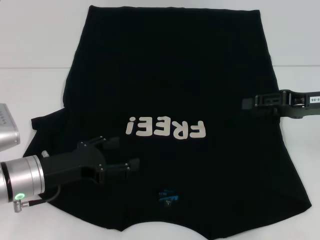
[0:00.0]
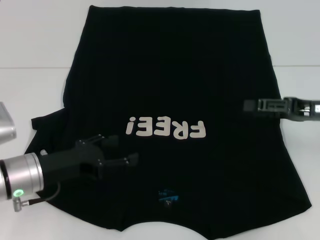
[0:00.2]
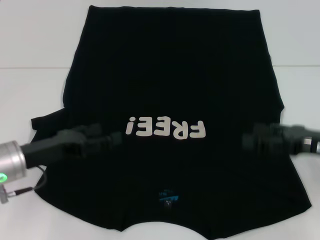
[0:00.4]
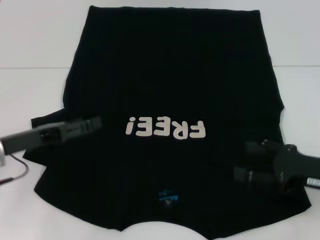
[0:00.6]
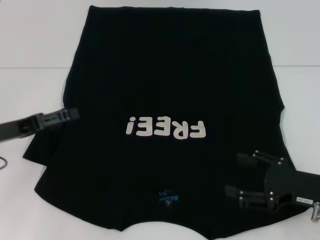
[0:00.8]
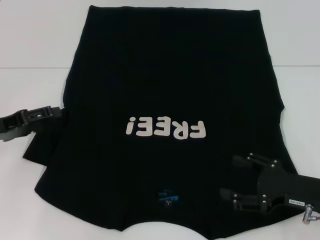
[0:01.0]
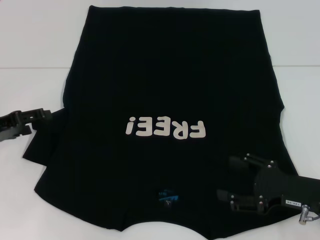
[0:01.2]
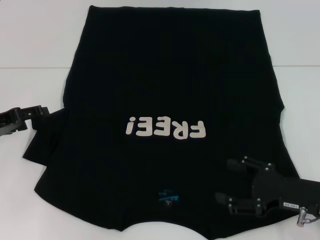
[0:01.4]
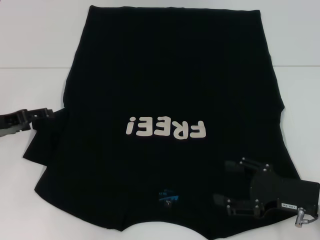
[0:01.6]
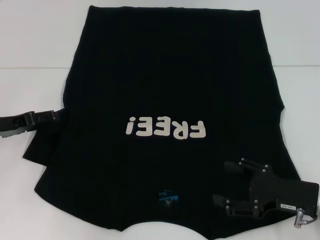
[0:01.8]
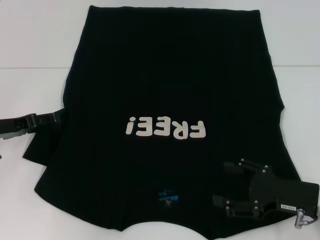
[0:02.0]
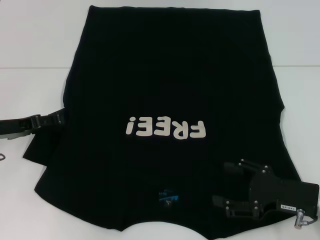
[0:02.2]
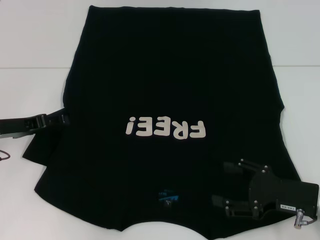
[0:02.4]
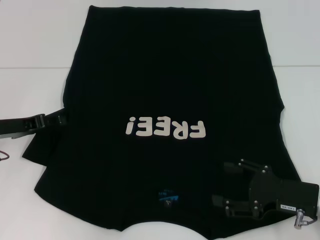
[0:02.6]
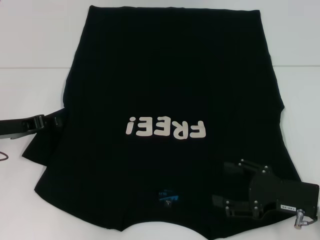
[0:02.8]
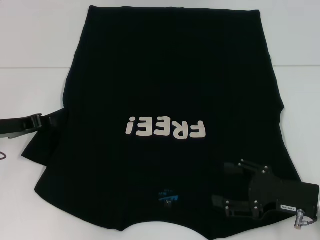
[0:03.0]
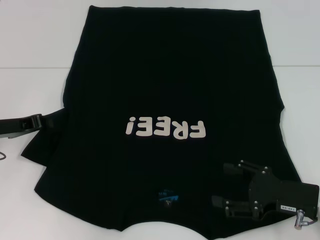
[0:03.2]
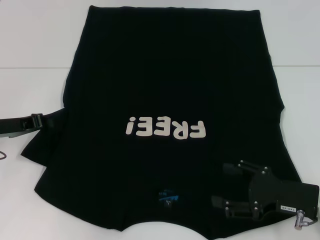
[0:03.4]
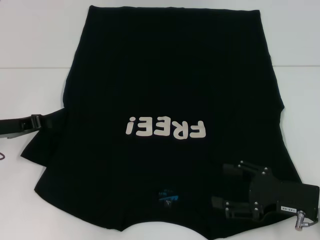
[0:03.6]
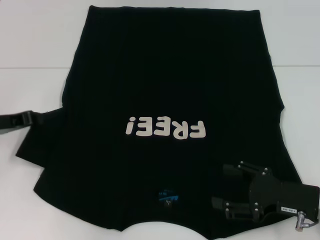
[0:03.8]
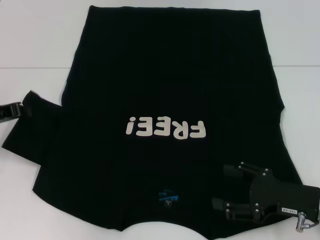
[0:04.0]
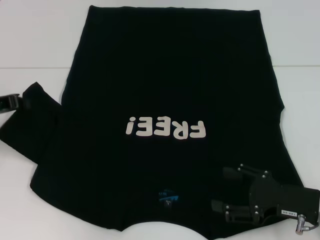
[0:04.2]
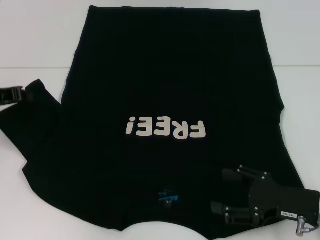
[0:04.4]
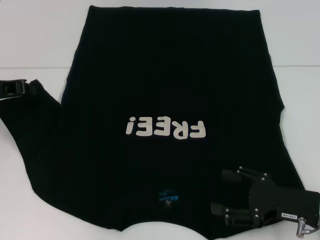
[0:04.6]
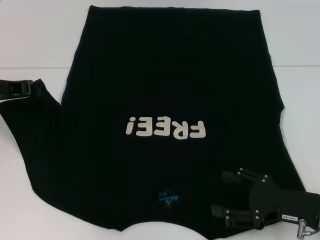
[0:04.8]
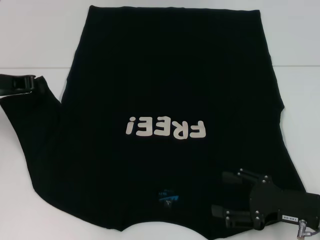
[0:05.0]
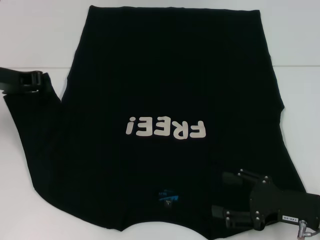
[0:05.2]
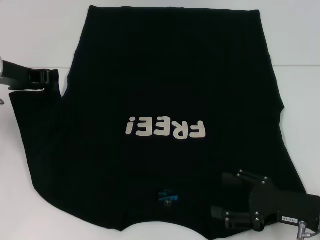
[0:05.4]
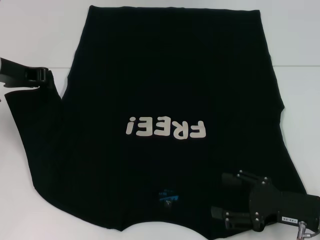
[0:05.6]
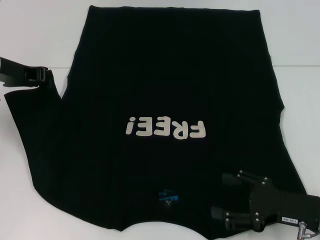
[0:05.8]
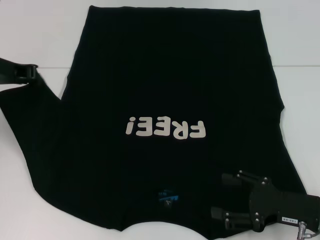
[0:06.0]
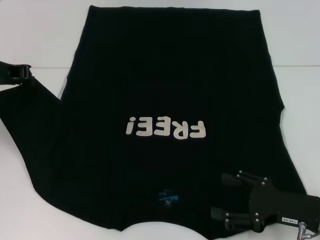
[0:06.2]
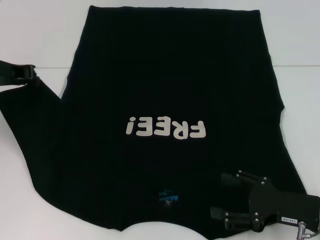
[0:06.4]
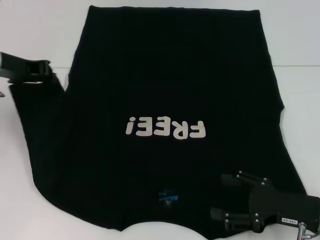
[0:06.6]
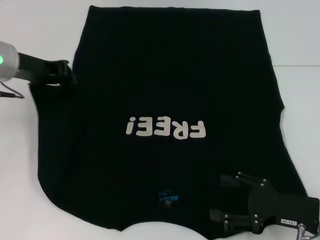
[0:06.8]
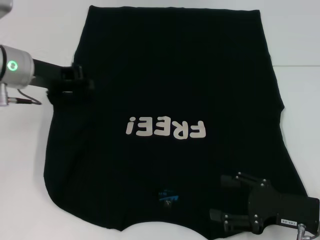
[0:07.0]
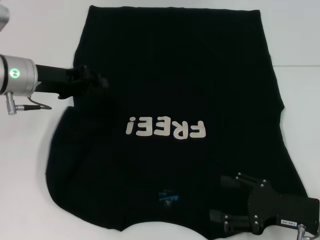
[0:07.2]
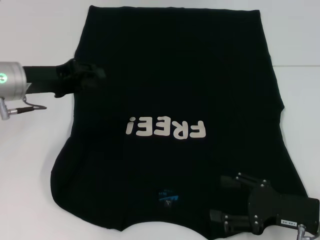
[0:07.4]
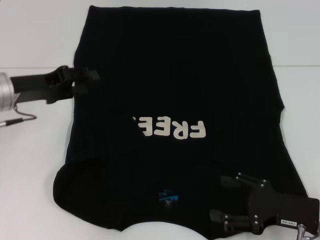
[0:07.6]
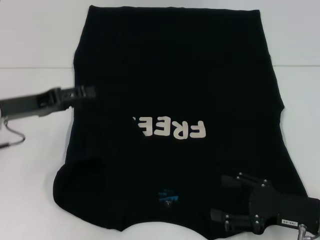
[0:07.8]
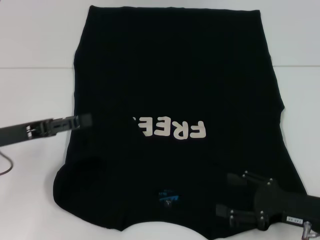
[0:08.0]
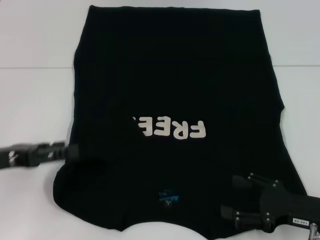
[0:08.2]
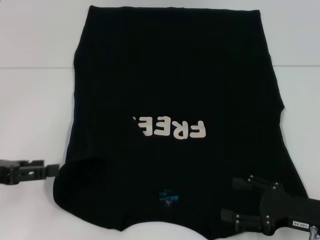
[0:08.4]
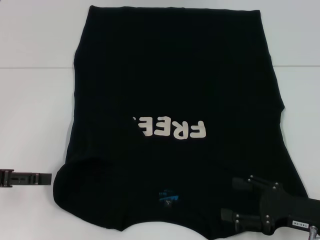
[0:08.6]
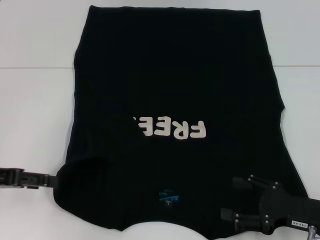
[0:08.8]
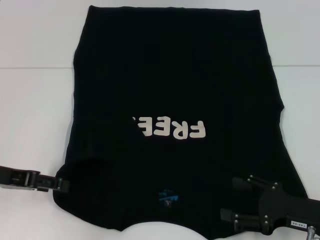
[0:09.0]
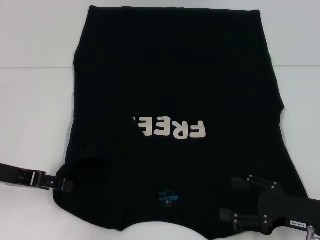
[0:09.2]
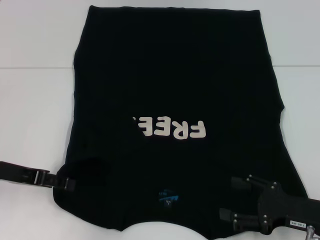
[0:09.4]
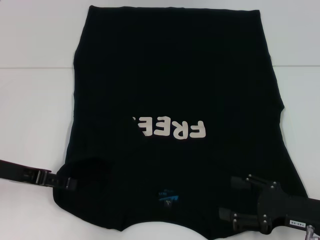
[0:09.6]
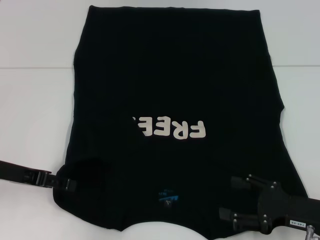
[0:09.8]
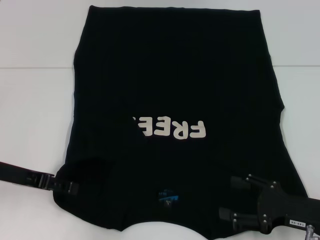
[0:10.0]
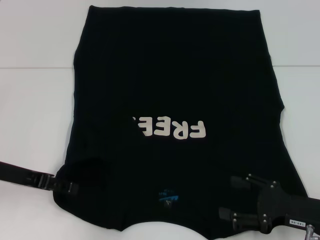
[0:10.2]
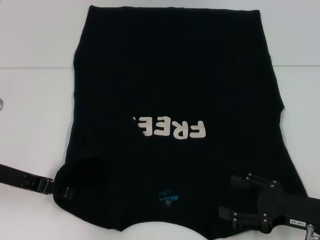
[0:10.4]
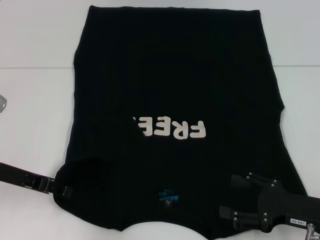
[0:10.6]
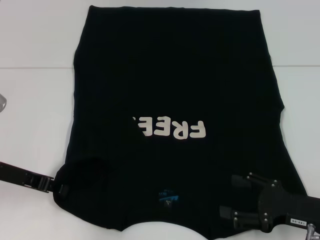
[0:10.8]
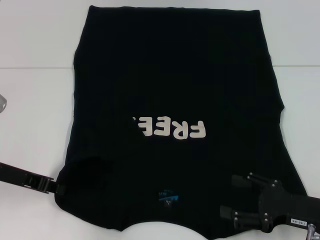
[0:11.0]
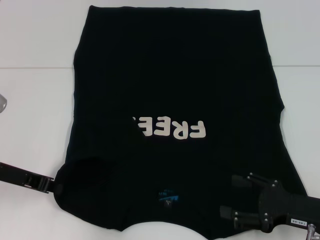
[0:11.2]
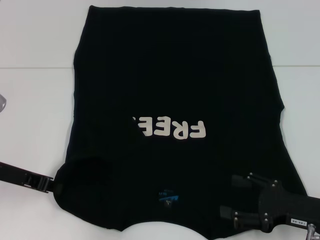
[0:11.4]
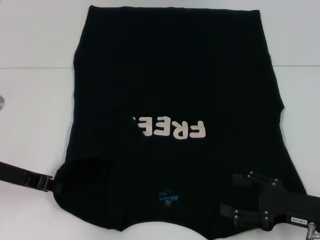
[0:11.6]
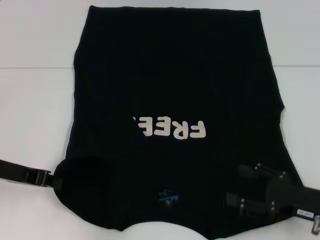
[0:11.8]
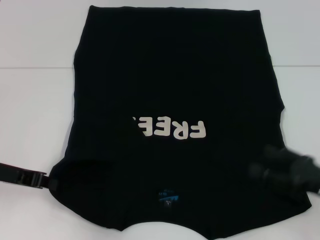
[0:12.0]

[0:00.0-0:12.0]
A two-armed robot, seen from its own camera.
Step, 0:00.4 to 0:07.6: Fold the bottom left sleeve with your left hand.
Step, 0:07.8 to 0:11.6: Grab the bottom left corner with your left hand.
0:00.0 to 0:01.6: The left gripper moves to the left and forward, roughly 10 cm; the right gripper moves downward and backward, about 15 cm, and opens its fingers.
0:01.6 to 0:03.0: There are only small adjustments of the grippers.
0:03.0 to 0:04.4: The left gripper travels upward by roughly 5 cm, and closes up.
0:04.4 to 0:06.0: The left gripper shifts roughly 5 cm upward.
0:06.0 to 0:07.6: The left gripper moves downward, roughly 5 cm.
0:07.6 to 0:09.0: The left gripper travels backward by about 10 cm, and opens its fingers.
0:09.0 to 0:10.4: The grippers make only small movements.
0:10.4 to 0:12.0: The left gripper closes up.

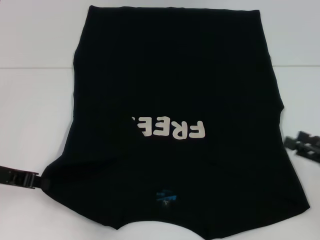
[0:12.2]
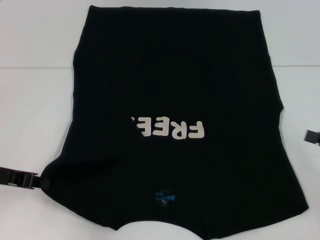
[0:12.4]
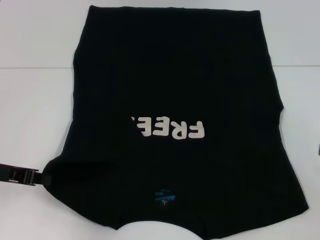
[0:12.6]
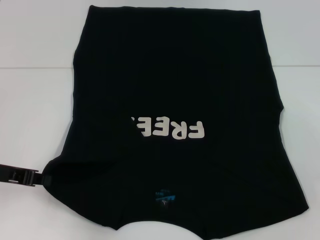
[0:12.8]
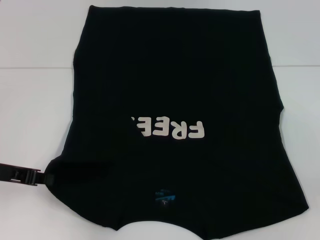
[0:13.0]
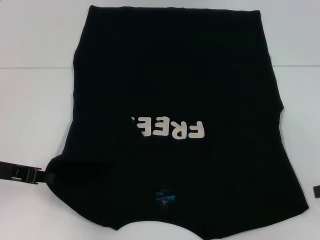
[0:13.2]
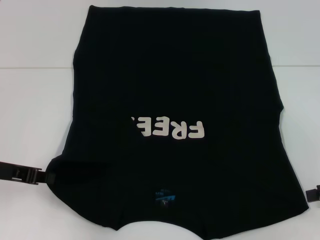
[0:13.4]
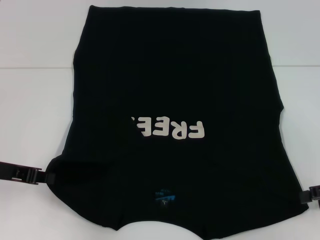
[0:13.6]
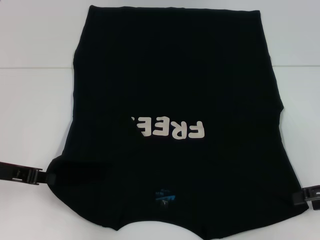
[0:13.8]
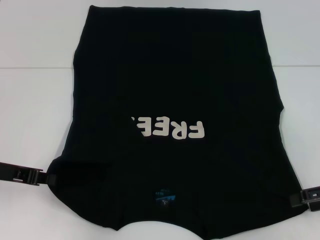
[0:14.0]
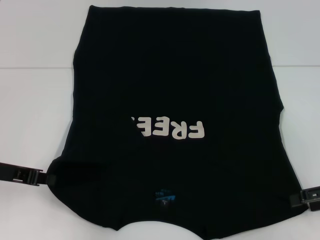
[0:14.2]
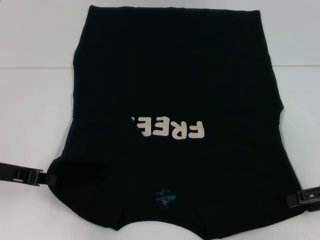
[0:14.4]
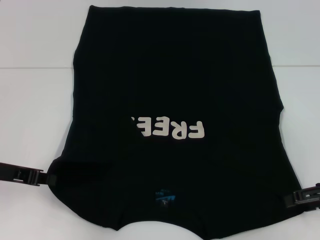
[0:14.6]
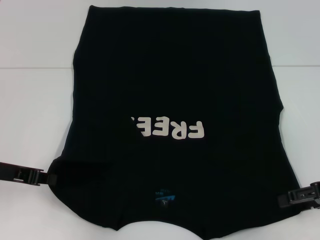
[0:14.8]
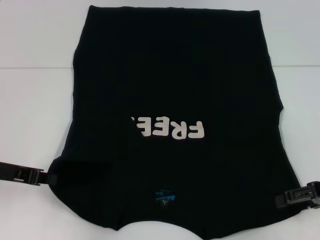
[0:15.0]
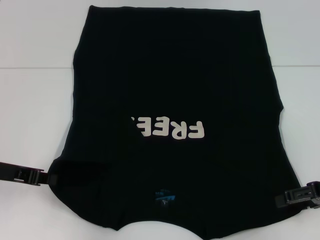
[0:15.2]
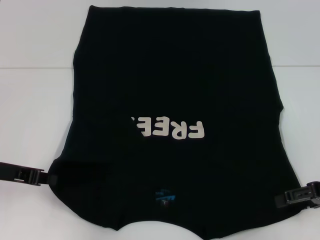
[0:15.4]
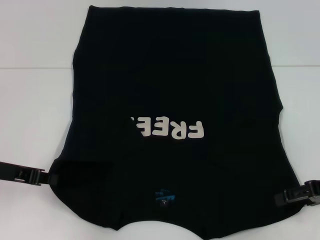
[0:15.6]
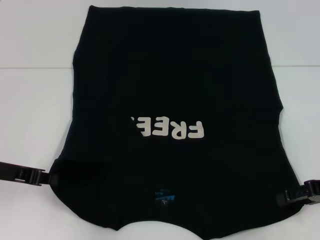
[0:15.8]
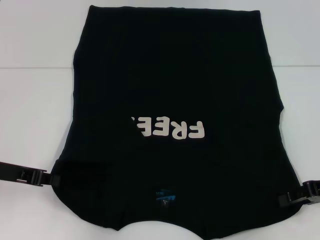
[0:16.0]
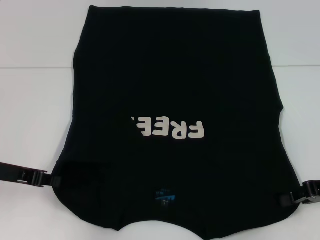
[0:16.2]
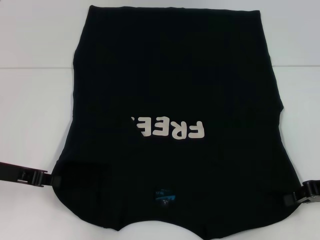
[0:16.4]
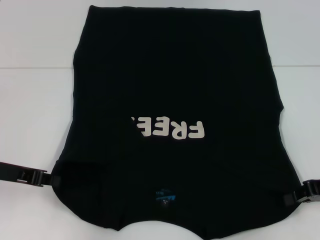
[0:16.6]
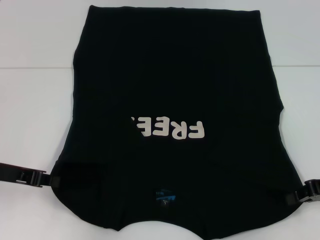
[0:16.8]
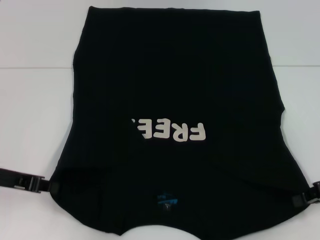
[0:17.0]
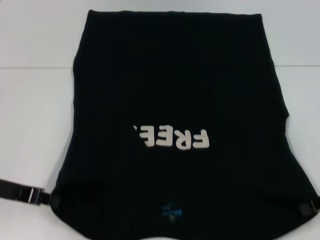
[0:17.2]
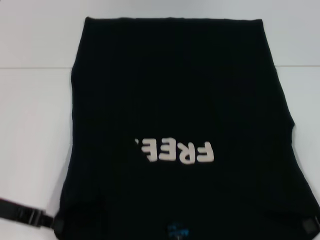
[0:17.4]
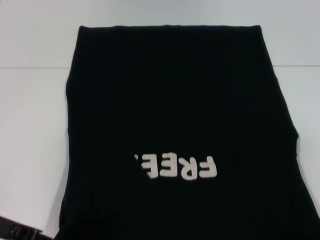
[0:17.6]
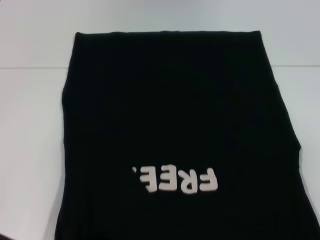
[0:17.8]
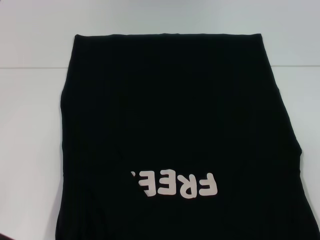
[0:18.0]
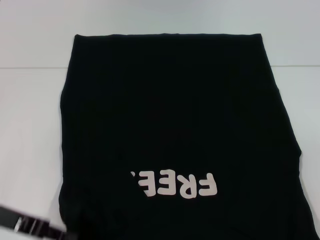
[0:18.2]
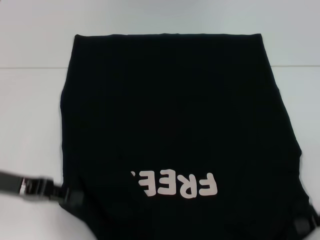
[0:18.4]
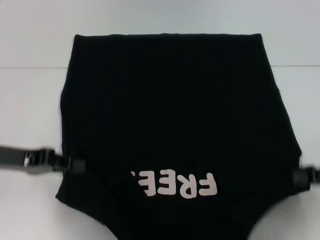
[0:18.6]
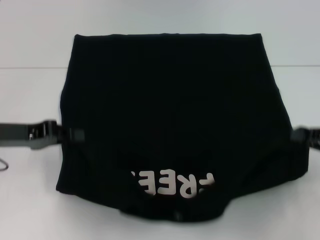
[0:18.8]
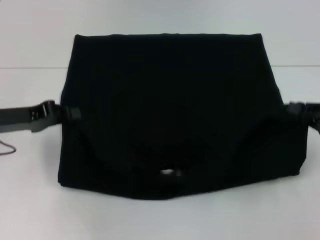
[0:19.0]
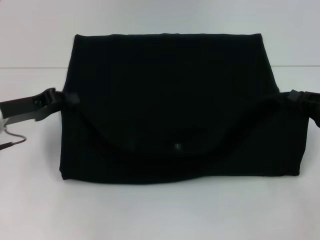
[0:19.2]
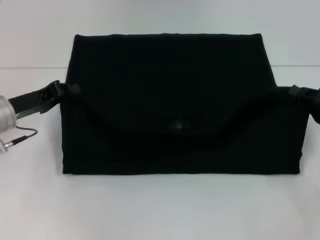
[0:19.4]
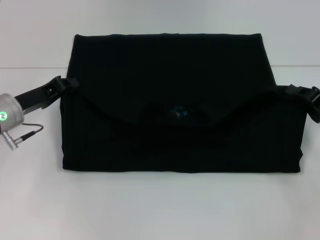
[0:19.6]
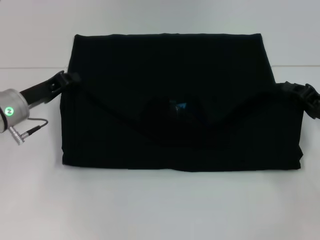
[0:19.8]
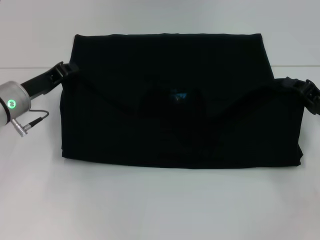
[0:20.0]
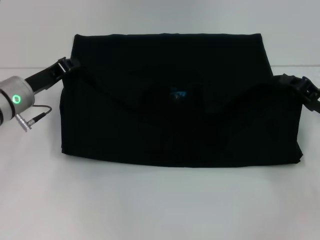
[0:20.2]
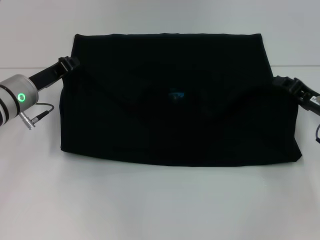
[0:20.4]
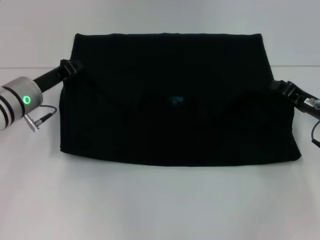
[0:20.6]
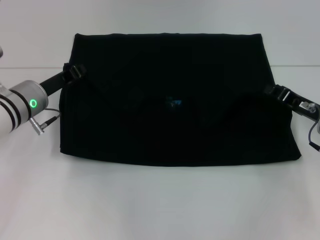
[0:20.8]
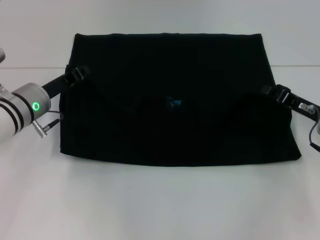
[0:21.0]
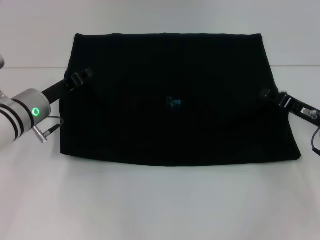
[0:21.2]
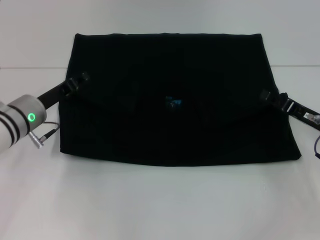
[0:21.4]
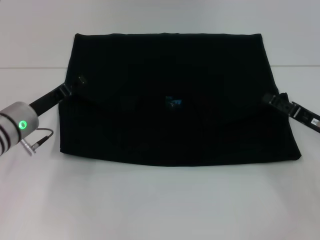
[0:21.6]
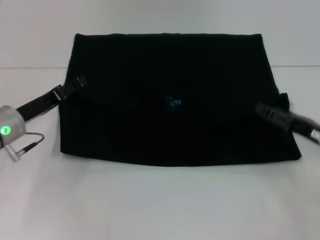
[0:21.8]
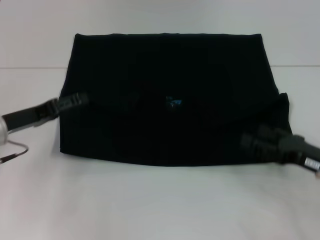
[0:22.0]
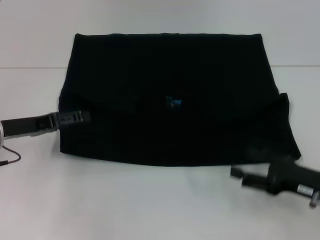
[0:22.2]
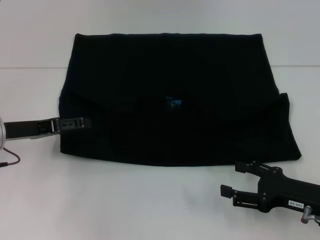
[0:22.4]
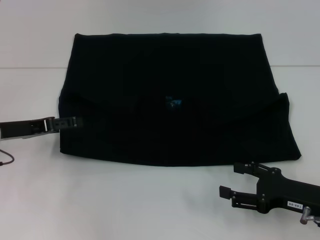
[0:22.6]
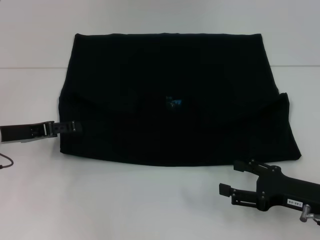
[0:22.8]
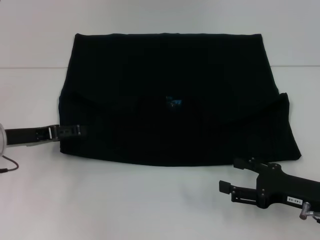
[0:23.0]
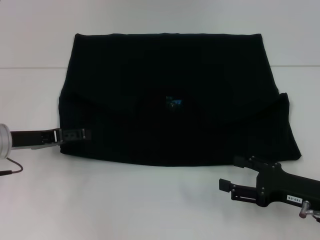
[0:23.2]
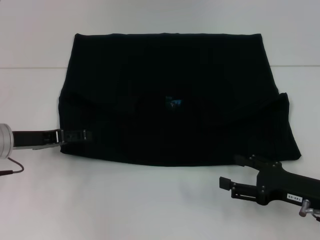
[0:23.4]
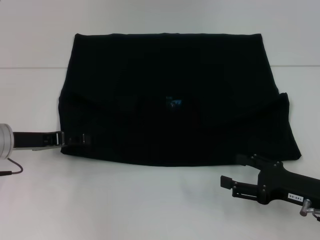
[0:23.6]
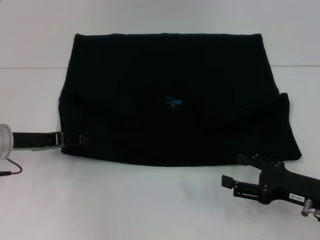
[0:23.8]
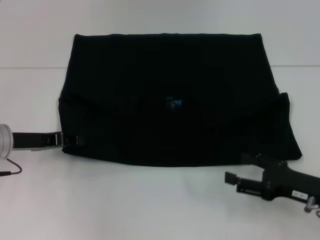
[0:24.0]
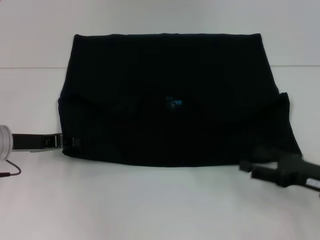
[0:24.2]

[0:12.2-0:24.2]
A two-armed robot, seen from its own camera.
Step, 0:12.2 to 0:16.8: Grab the bottom right corner with your right hand.
Step, 0:17.0 to 0:21.4: Fold the clothes with your left hand.
Step, 0:17.0 to 0:21.4: Fold the clothes with your right hand.
0:13.8 to 0:15.2: The grippers stay close to where they were, moving slightly.
0:15.2 to 0:16.6: The right gripper closes its fingers.
0:16.6 to 0:18.2: The right gripper travels backward by approximately 5 cm.
0:18.2 to 0:19.8: The grippers both shift forward by roughly 10 cm.
0:19.8 to 0:21.2: The grippers make only small movements.
0:21.2 to 0:22.6: The left gripper moves to the left, approximately 5 cm, and opens its fingers, while the right gripper is displaced backward by roughly 10 cm, and opens up.
0:22.6 to 0:24.2: The left gripper closes its fingers.
